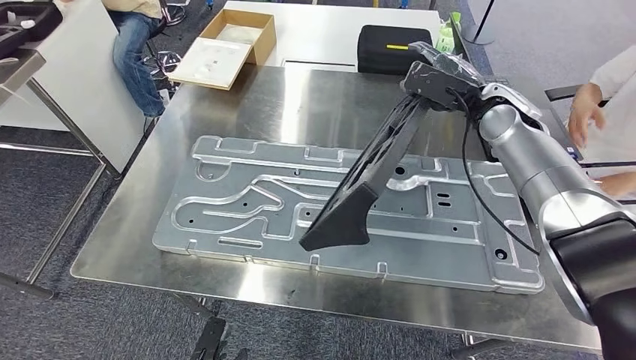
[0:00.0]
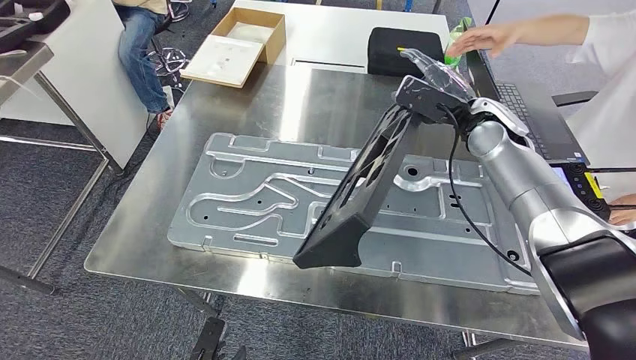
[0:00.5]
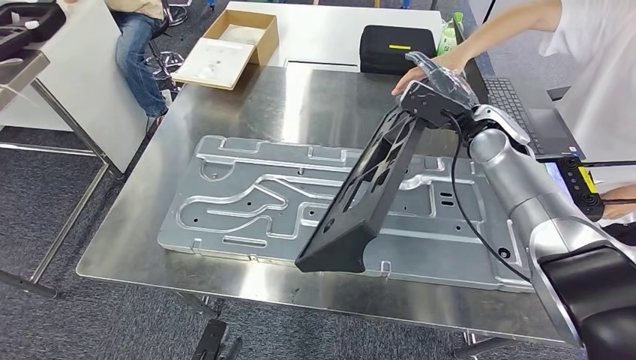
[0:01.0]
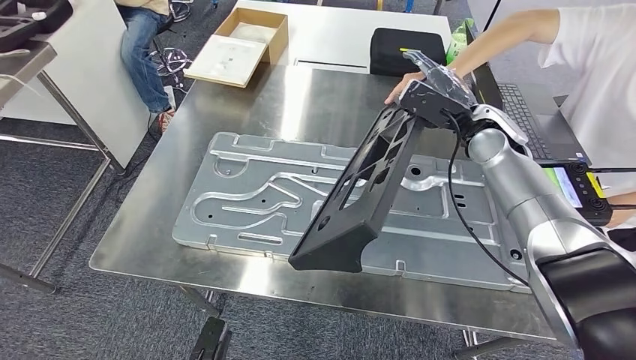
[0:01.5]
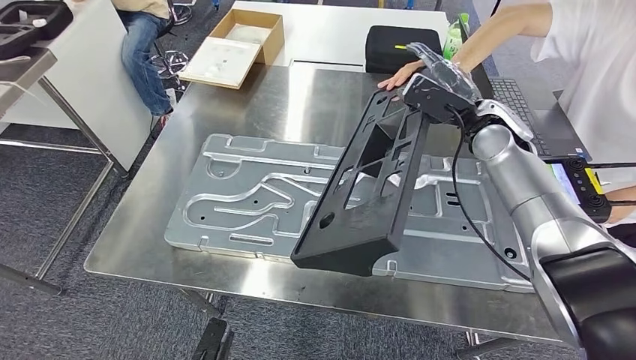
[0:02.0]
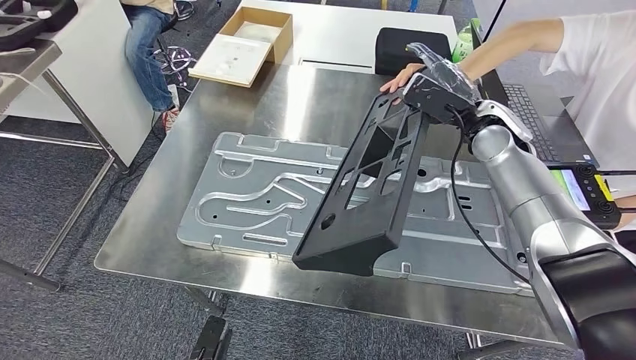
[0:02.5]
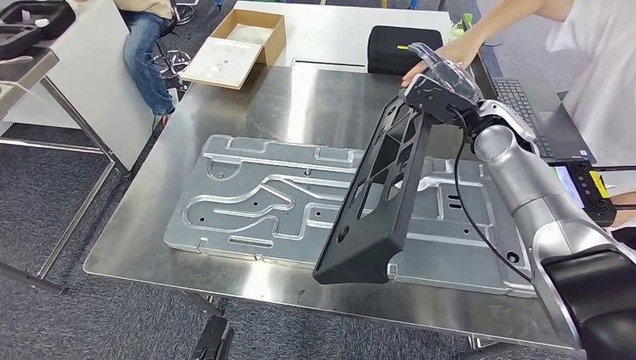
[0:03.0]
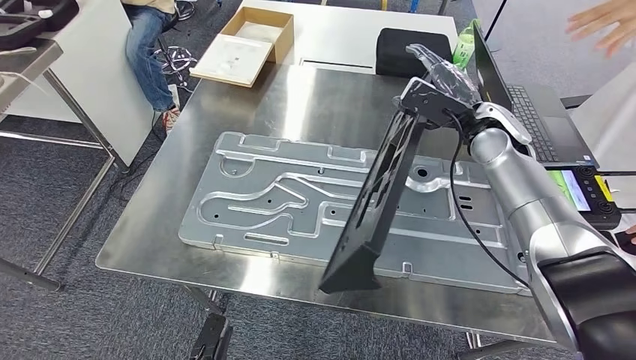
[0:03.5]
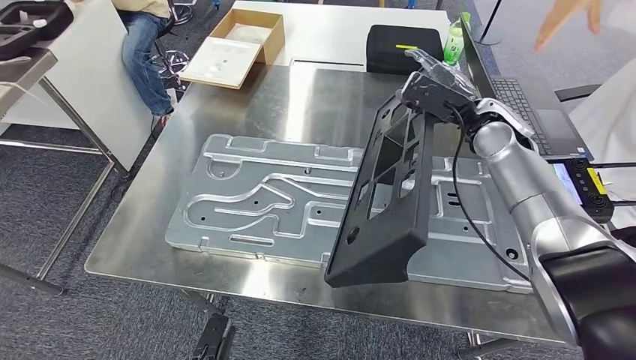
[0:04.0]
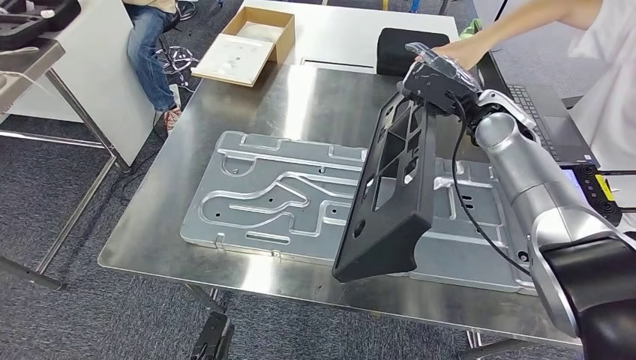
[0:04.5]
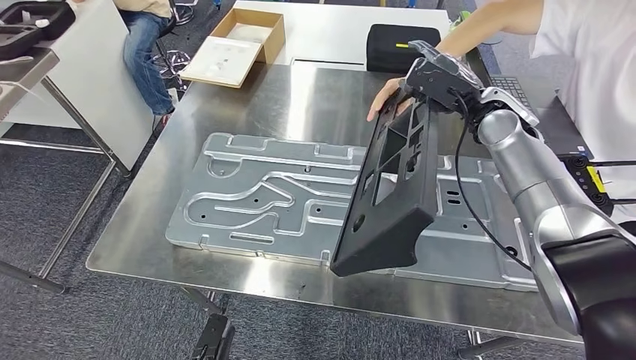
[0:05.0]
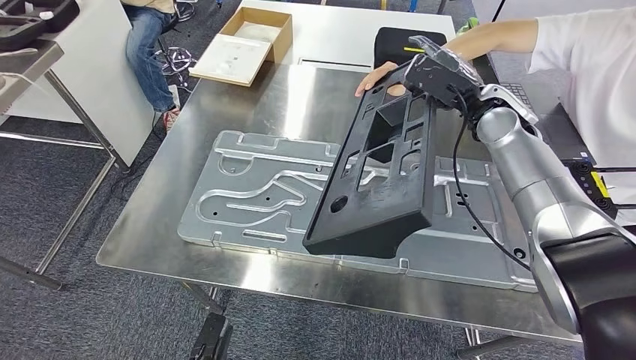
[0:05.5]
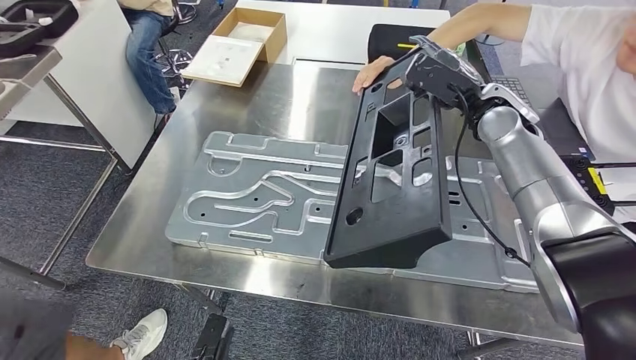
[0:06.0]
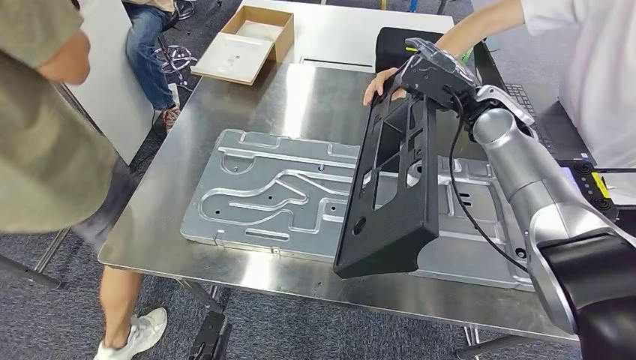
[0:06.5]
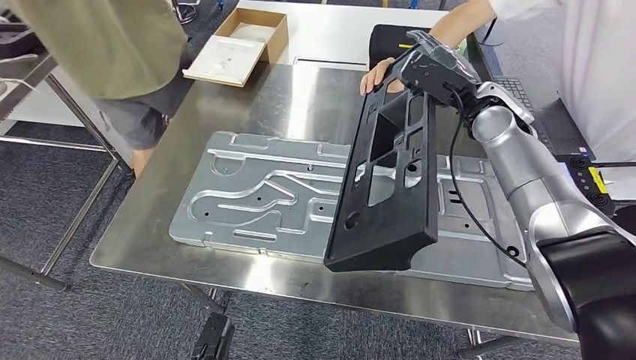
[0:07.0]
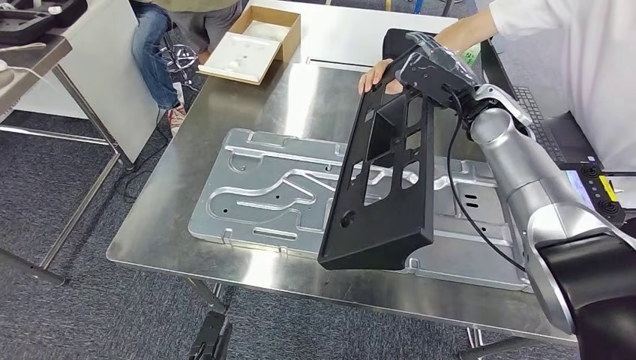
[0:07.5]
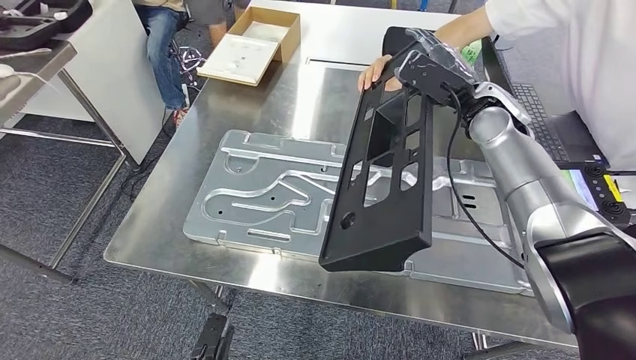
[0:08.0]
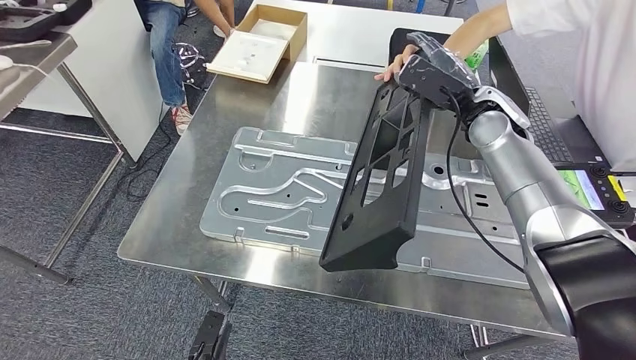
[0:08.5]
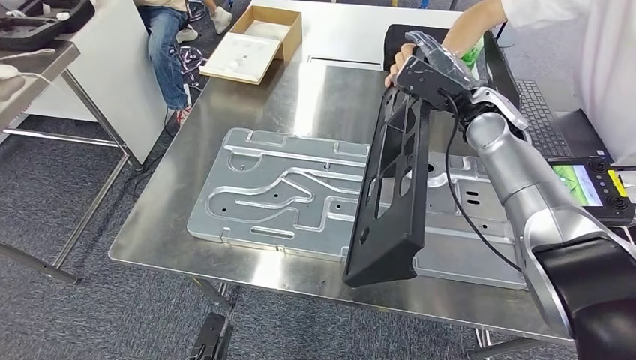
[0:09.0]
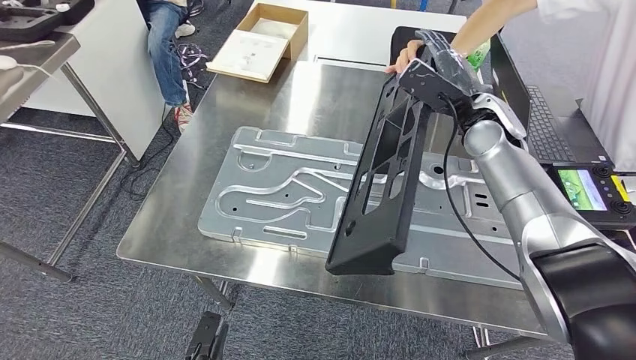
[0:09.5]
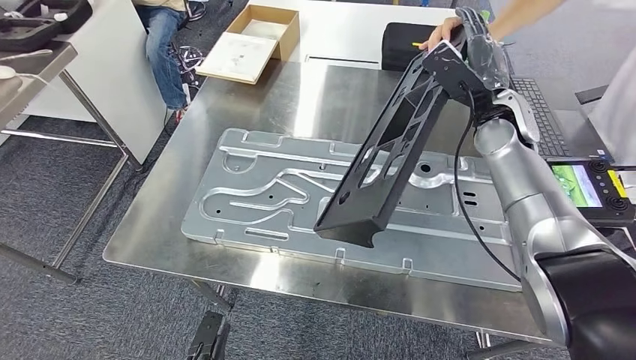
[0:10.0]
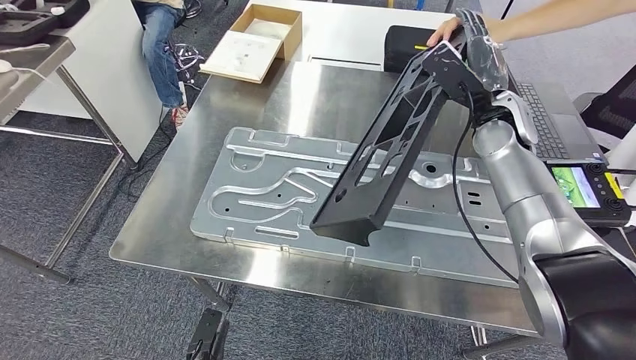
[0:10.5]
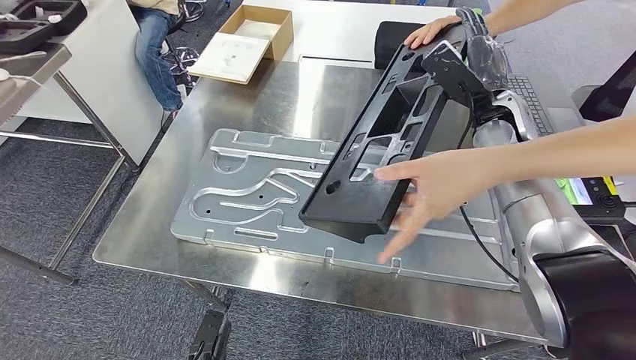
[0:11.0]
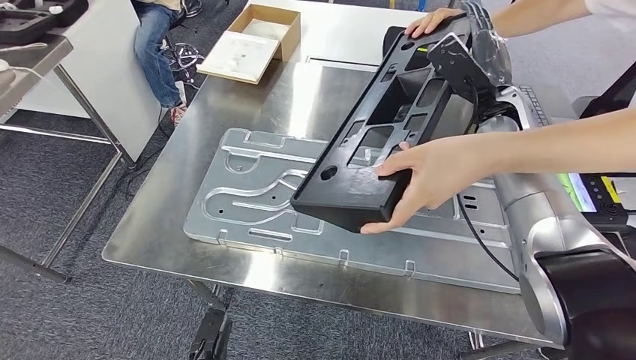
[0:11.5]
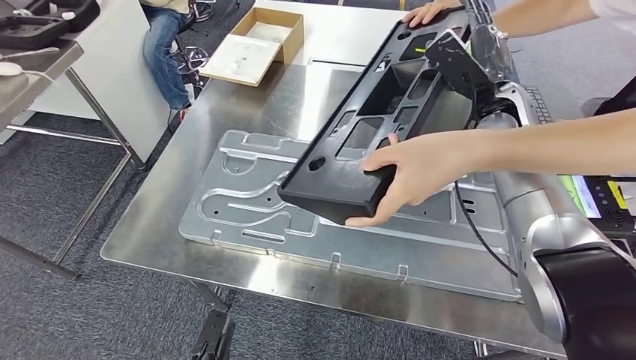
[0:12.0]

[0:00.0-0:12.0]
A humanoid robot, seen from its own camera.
0:02.0 to 0:04.0: Both hands stay about where they are.

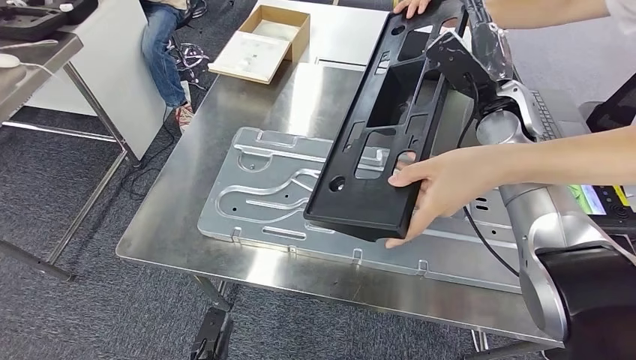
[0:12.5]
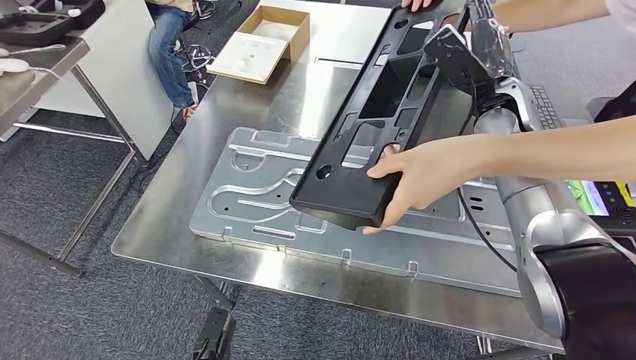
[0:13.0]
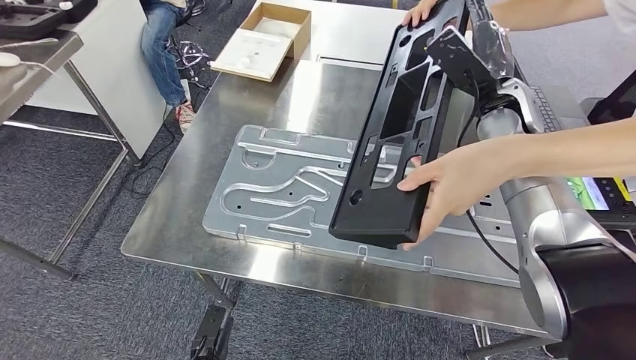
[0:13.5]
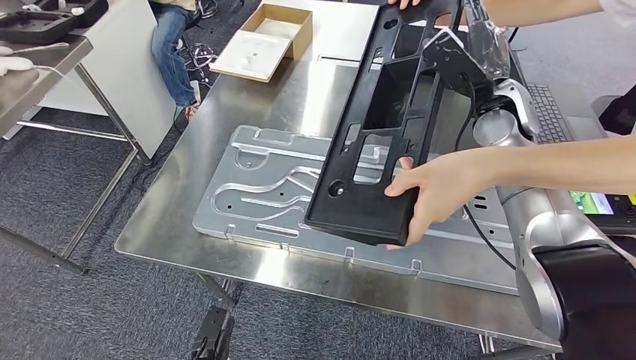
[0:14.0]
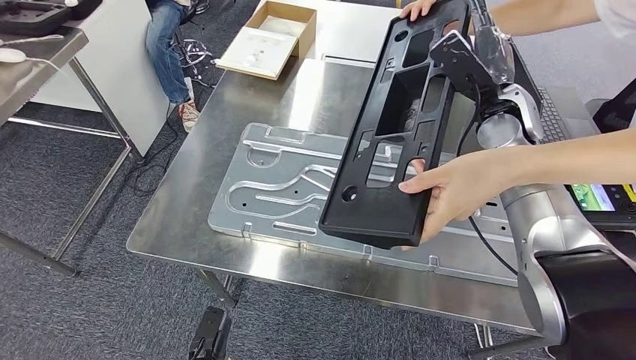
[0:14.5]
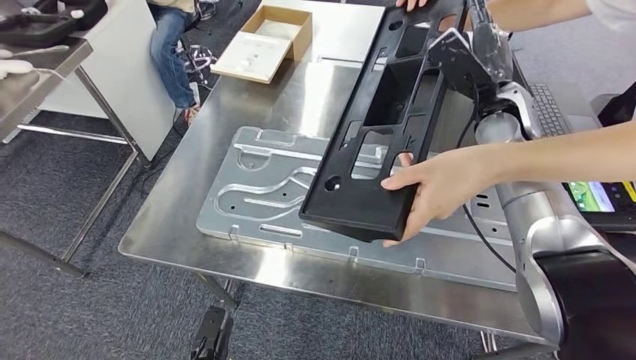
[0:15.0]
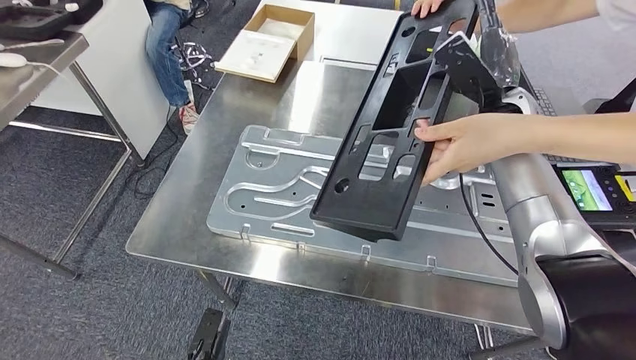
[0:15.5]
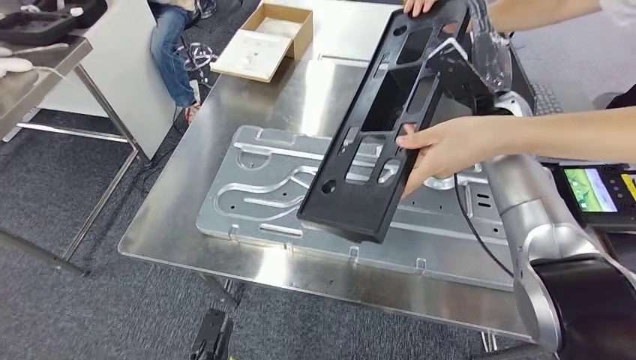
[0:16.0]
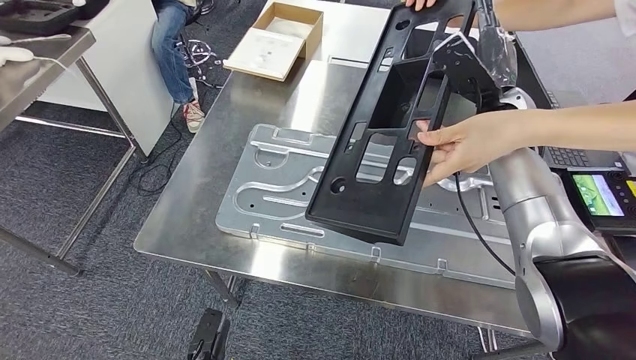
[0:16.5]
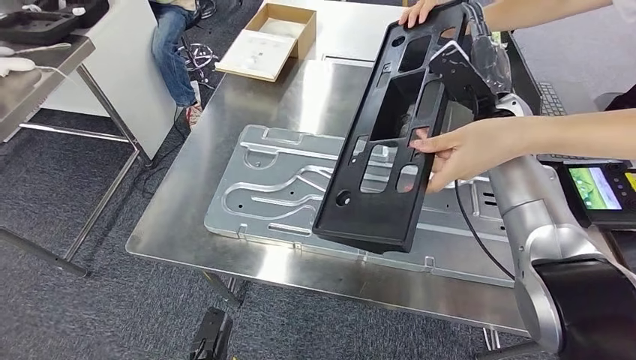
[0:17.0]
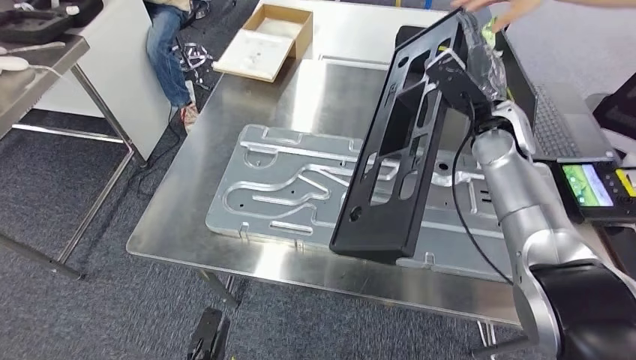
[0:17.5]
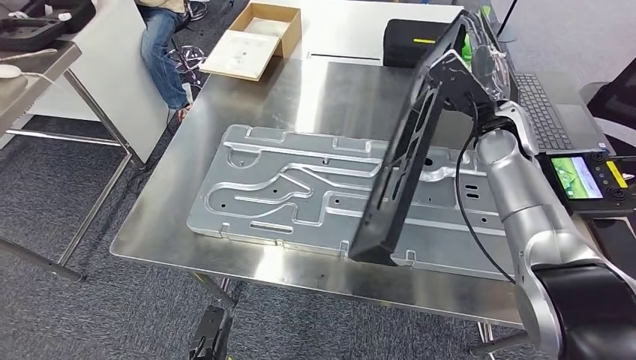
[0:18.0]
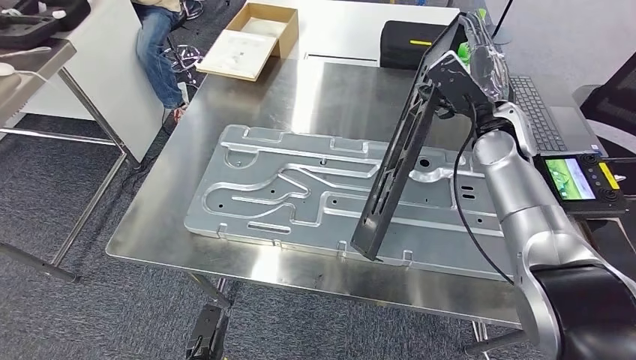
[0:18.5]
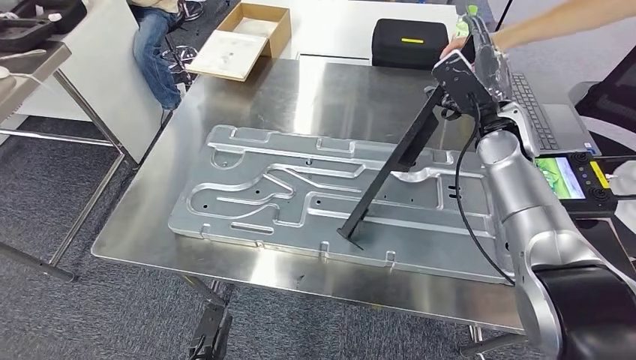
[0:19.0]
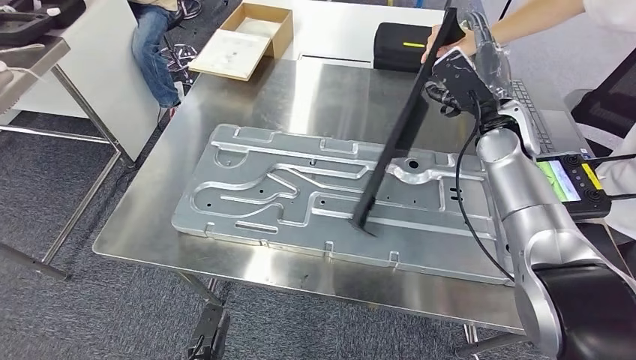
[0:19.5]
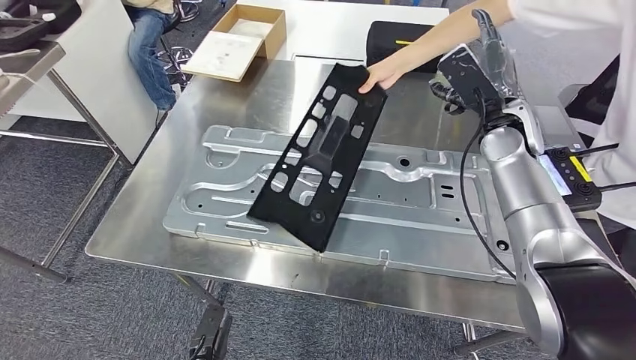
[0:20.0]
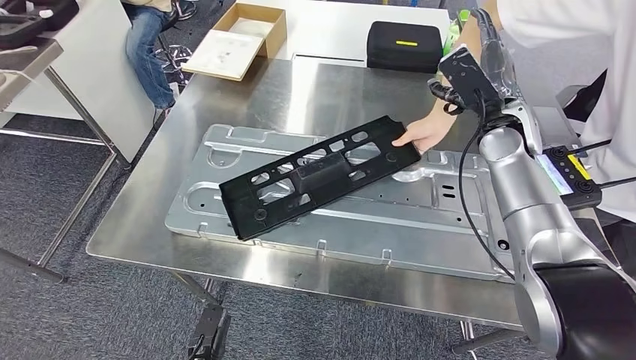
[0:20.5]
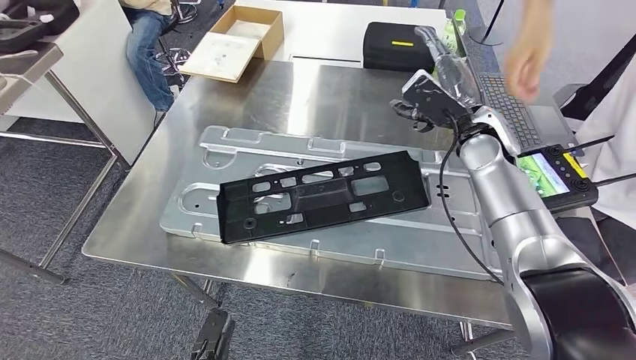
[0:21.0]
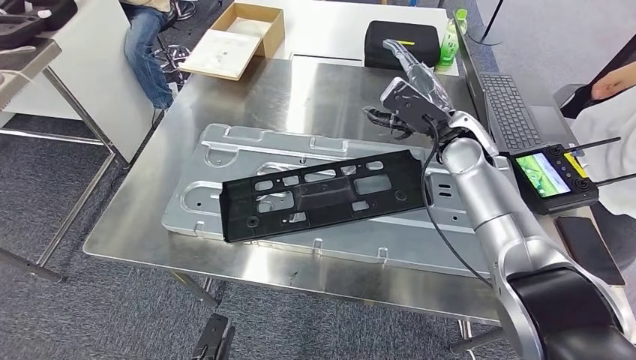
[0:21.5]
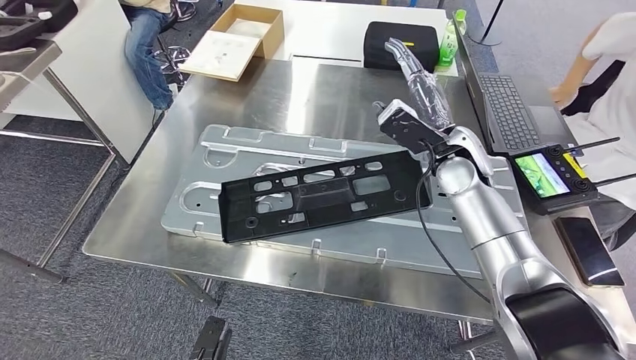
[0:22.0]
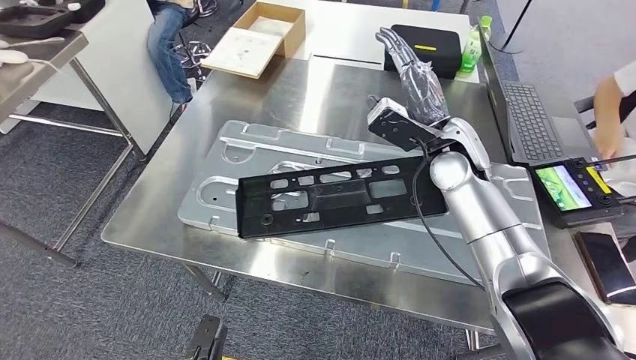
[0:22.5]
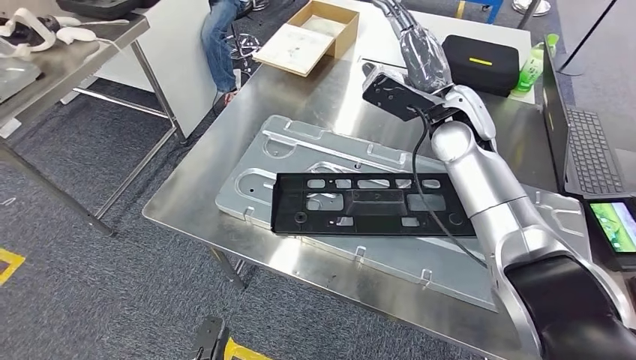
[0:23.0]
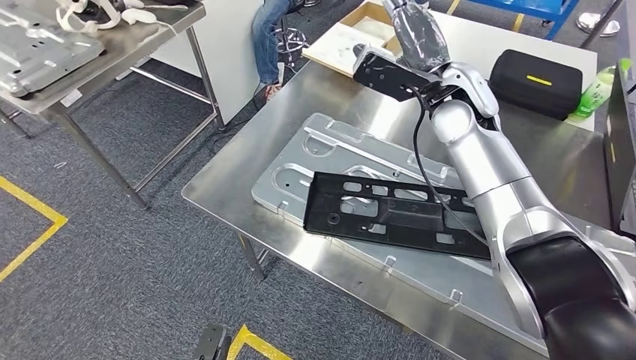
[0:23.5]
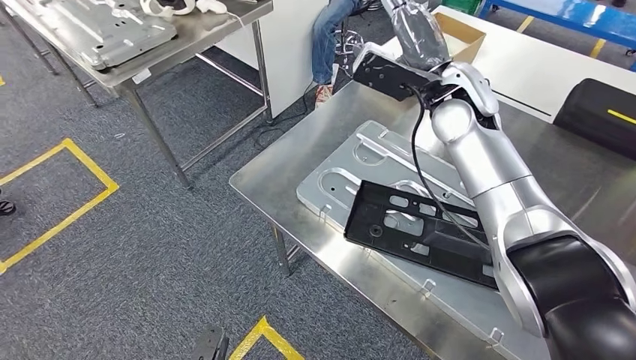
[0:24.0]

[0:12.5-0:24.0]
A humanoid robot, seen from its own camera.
Step, 0:12.5 to 0:22.0: Insert the large material into the corresponding hole on the workbench.
